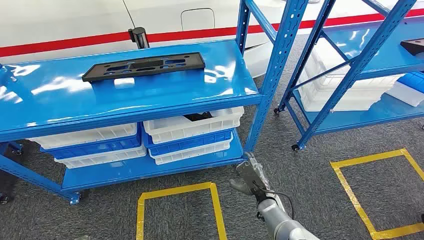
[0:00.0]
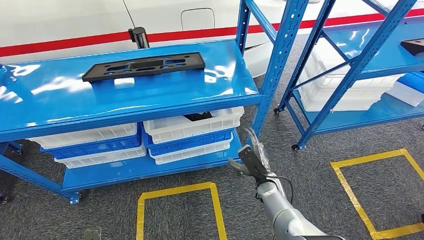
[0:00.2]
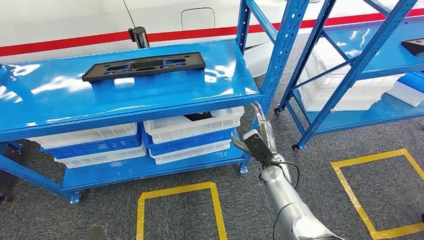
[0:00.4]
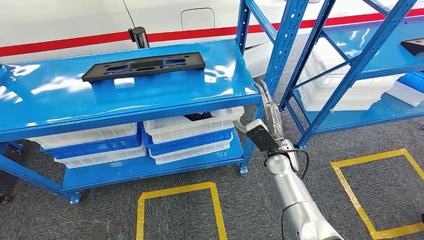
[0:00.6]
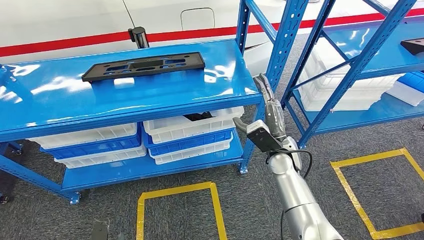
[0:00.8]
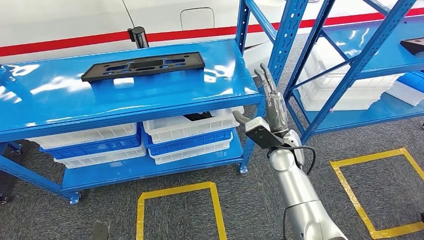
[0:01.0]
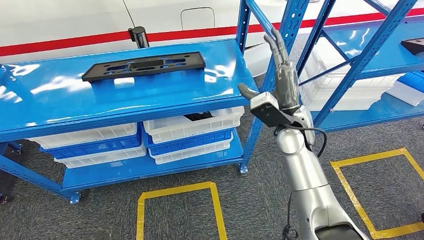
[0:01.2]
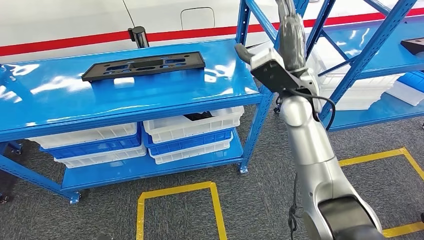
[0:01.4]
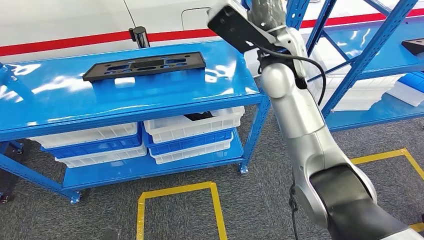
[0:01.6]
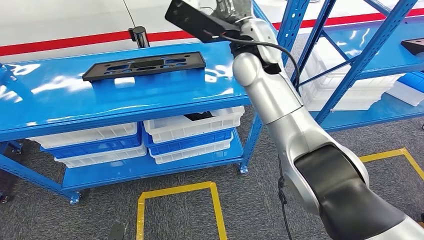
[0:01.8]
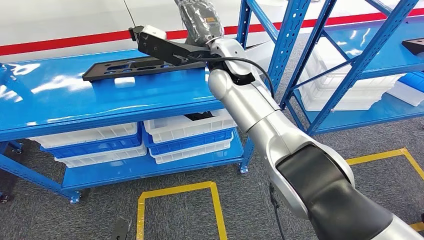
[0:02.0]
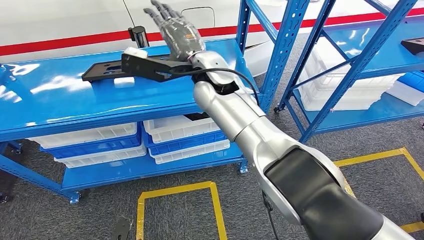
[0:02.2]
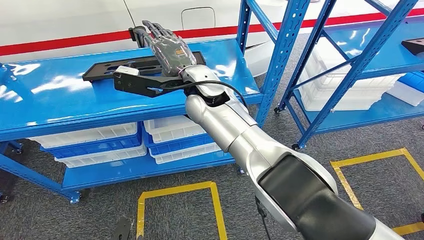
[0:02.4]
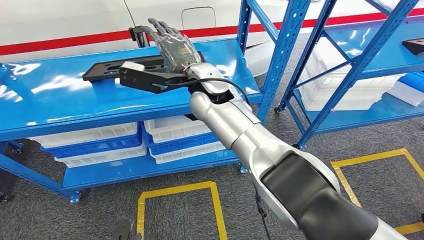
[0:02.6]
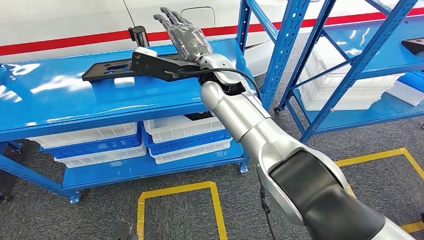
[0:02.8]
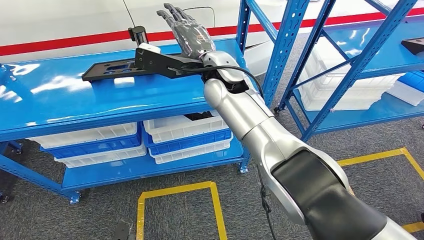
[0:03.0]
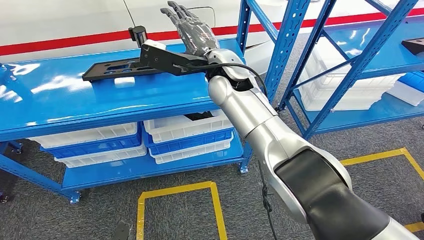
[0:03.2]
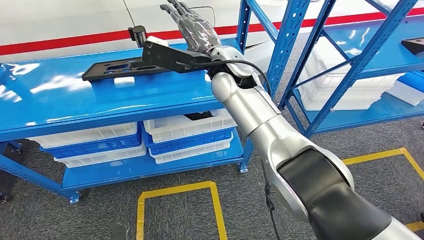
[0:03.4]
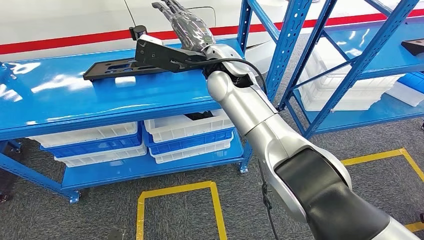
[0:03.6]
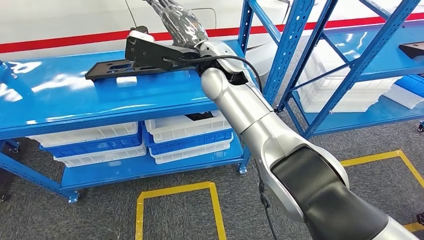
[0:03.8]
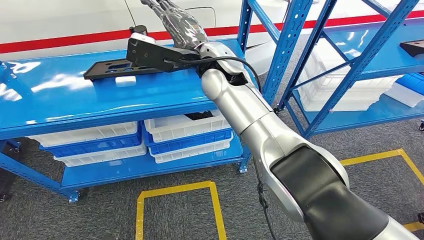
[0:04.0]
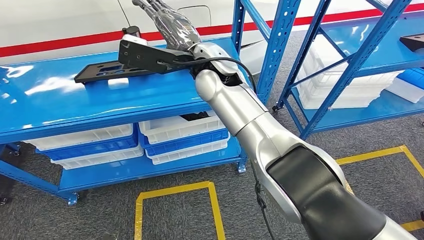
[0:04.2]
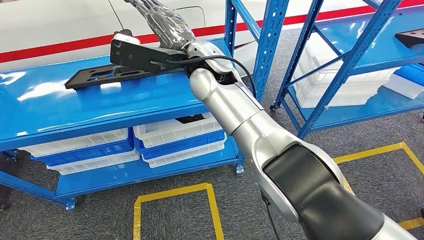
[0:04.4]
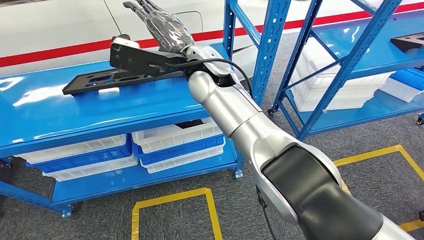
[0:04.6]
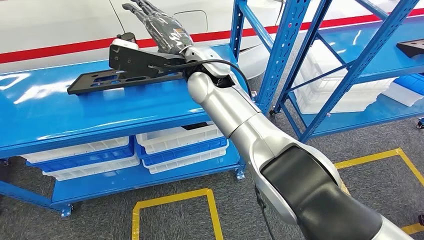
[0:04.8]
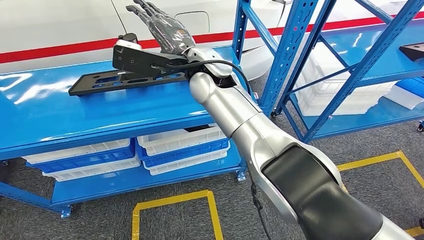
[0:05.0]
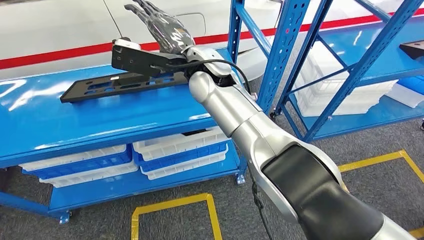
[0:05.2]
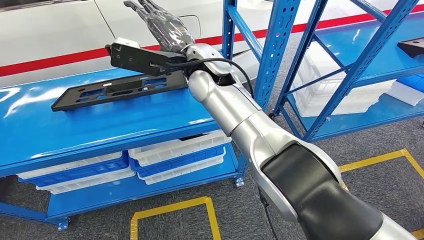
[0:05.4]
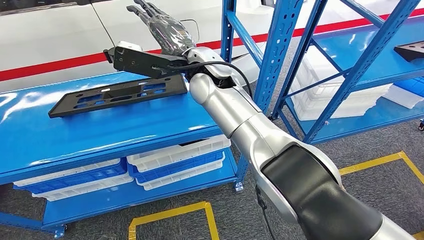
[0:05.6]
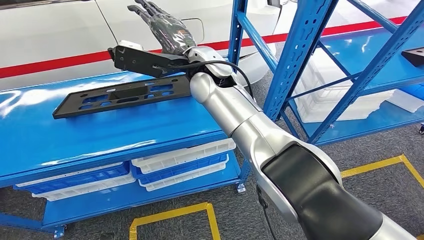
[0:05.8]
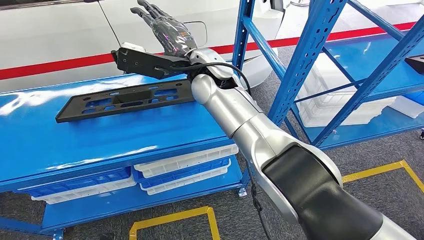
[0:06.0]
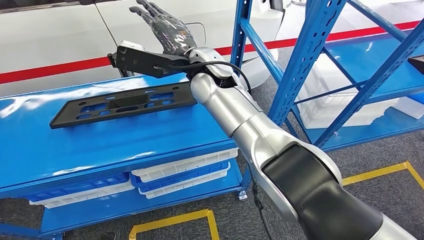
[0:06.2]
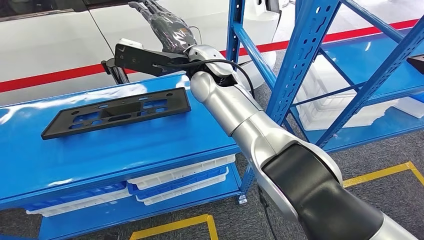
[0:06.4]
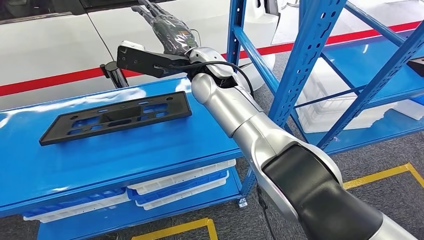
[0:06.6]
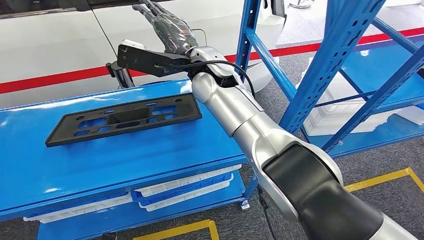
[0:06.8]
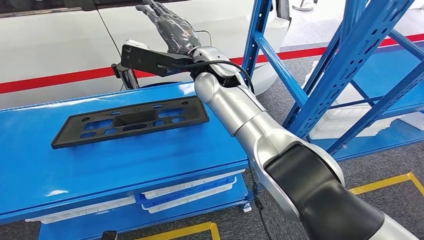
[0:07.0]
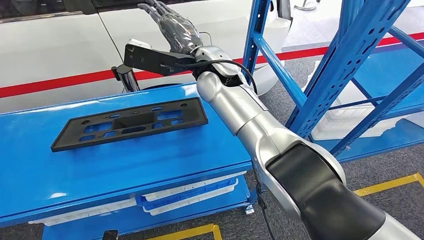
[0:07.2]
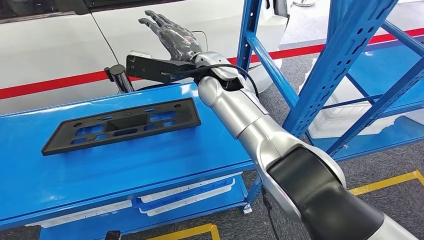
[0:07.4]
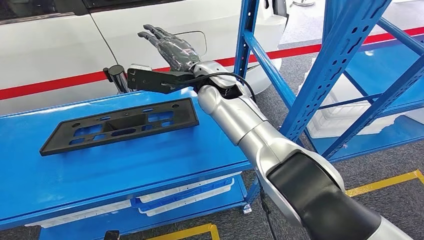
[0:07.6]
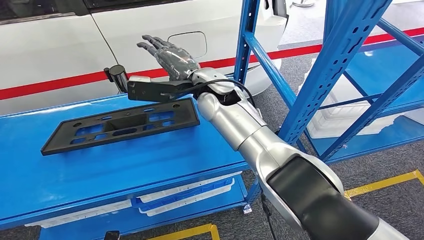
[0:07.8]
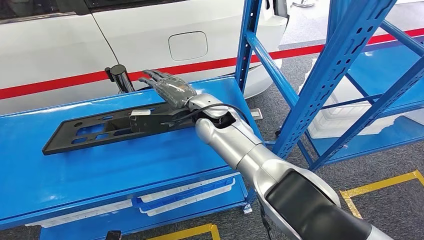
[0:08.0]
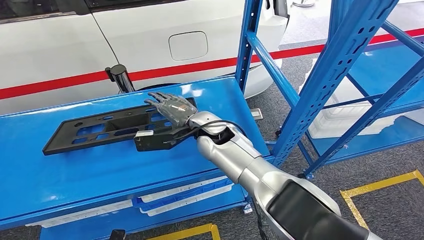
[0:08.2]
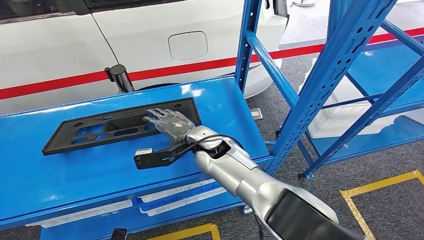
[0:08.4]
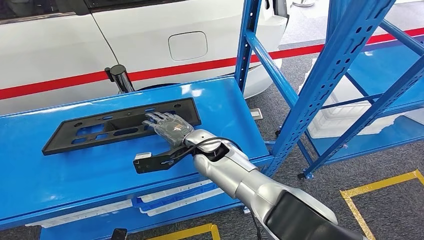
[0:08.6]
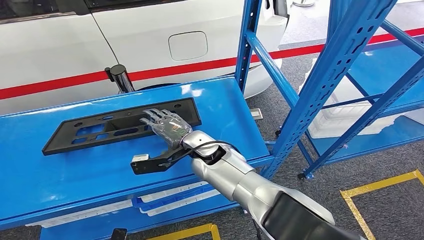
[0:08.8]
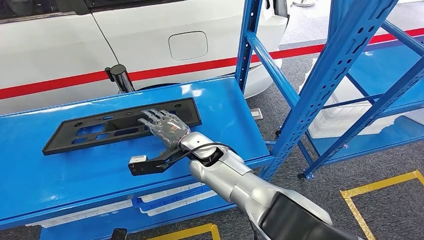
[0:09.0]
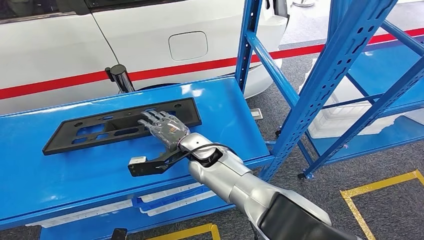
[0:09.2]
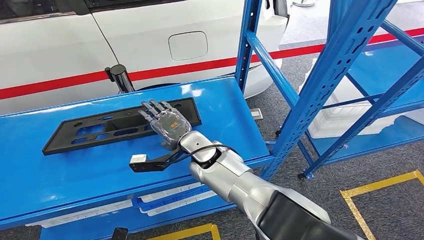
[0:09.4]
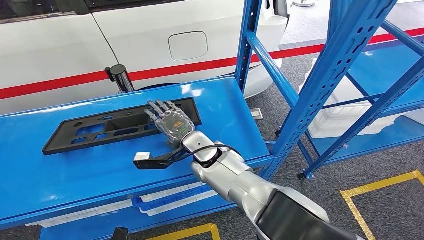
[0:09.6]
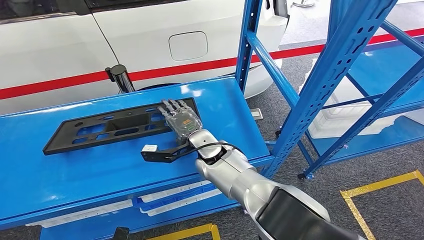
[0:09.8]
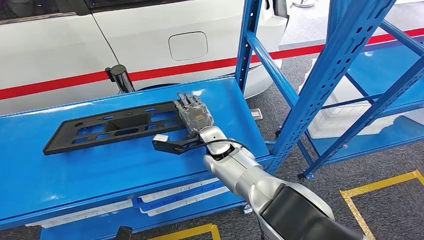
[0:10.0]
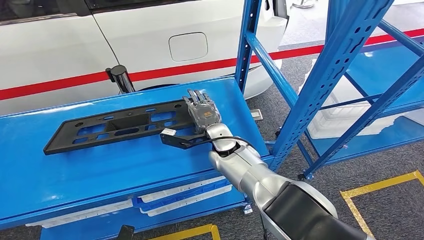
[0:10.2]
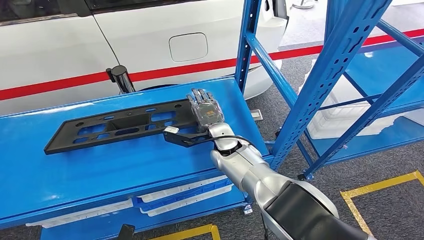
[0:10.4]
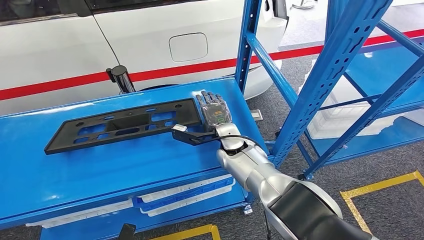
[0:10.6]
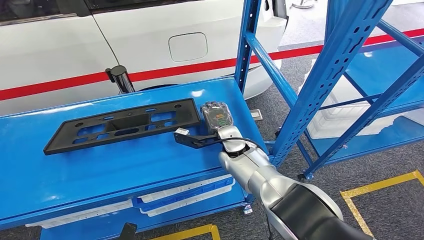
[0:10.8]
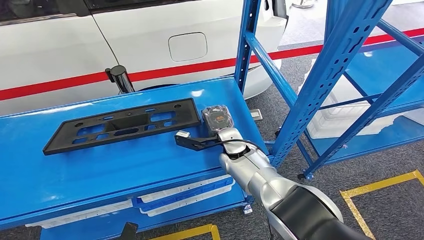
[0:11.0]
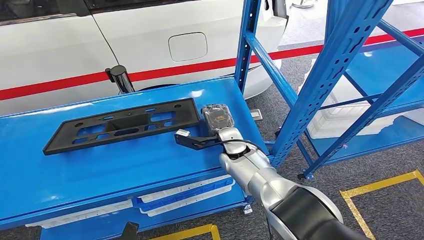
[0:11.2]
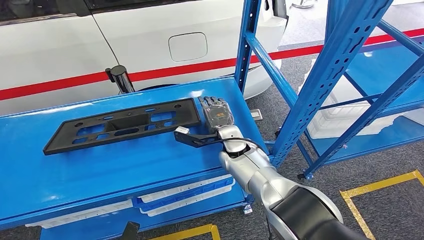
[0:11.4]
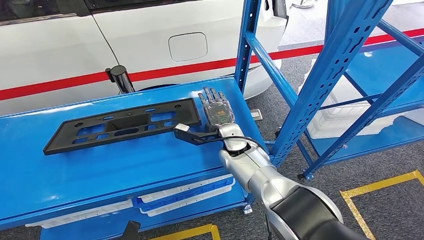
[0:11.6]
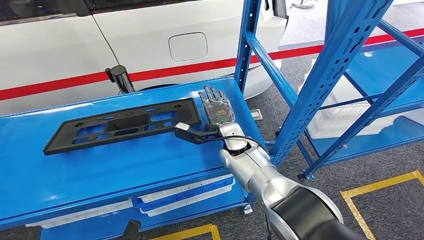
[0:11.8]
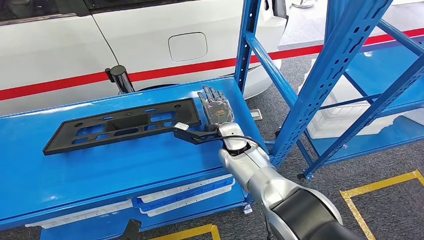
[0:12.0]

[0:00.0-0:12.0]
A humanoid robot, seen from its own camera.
0:09.0 to 0:10.4: The right hand moves to the right, approximately 5 cm.
0:10.4 to 0:12.0: The hands move only a little.

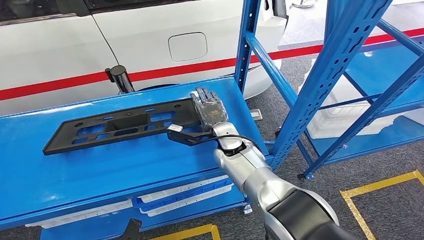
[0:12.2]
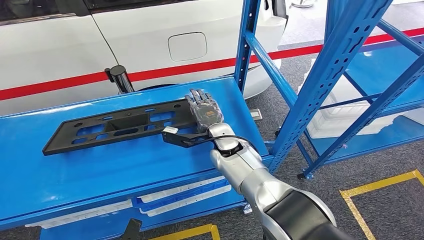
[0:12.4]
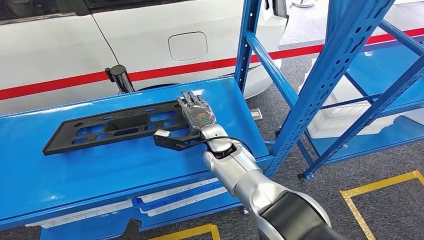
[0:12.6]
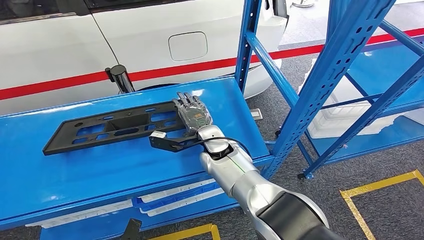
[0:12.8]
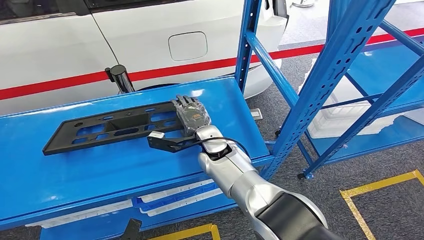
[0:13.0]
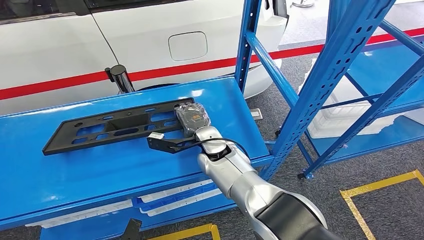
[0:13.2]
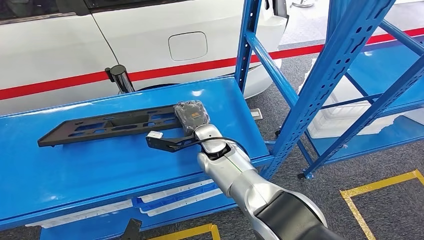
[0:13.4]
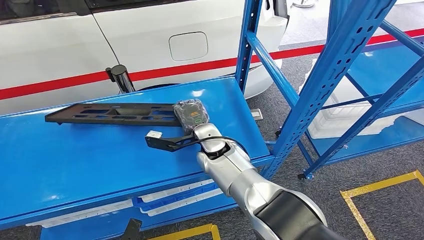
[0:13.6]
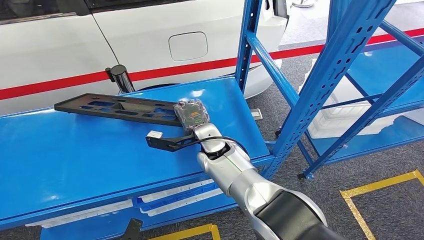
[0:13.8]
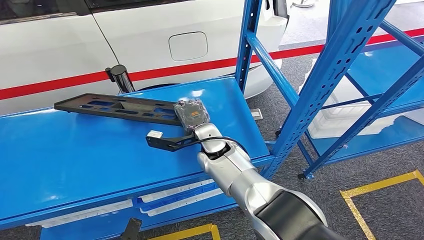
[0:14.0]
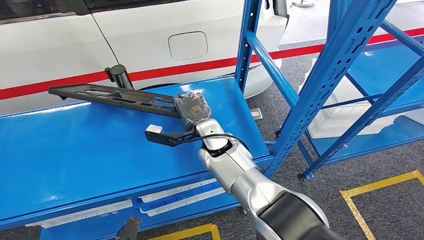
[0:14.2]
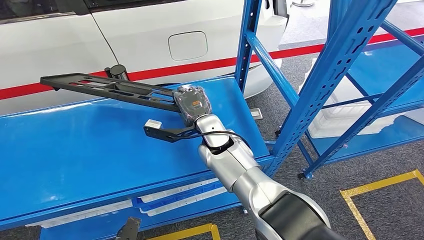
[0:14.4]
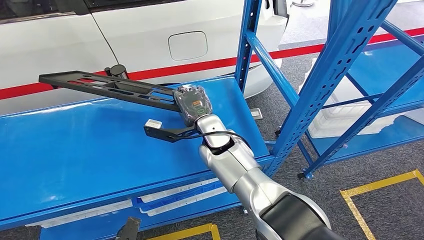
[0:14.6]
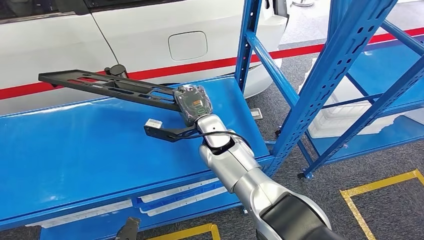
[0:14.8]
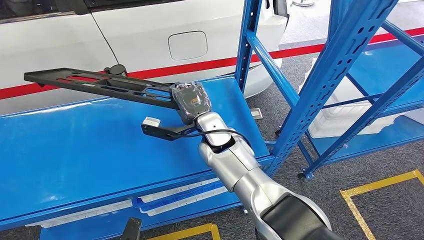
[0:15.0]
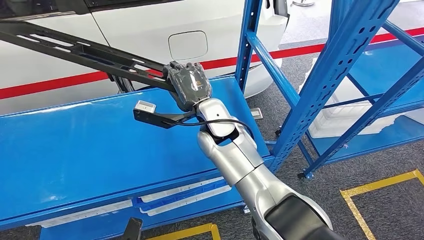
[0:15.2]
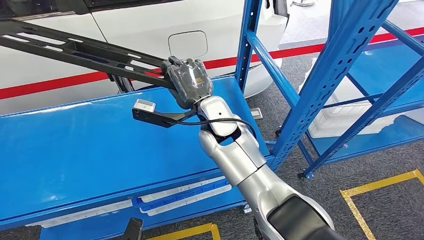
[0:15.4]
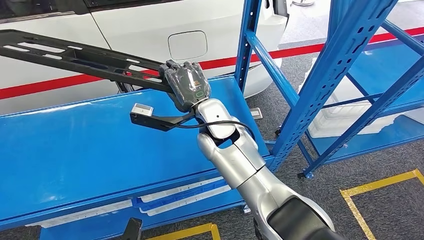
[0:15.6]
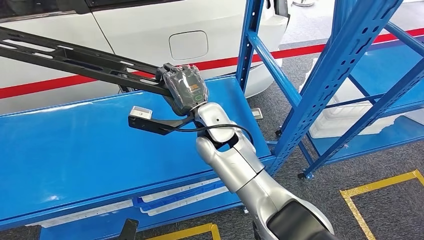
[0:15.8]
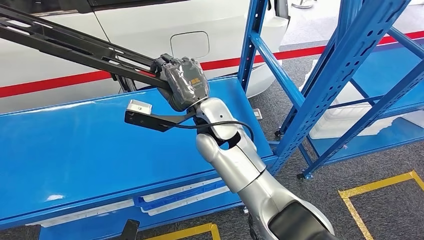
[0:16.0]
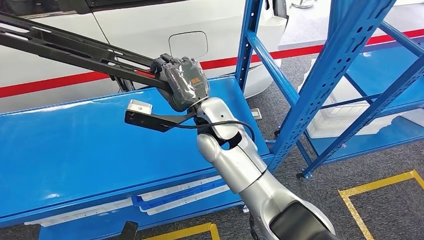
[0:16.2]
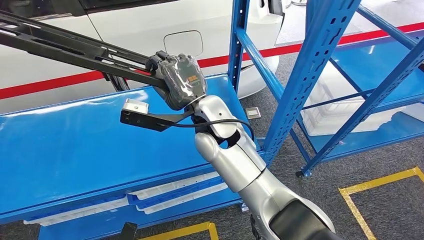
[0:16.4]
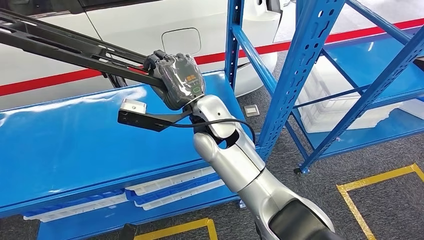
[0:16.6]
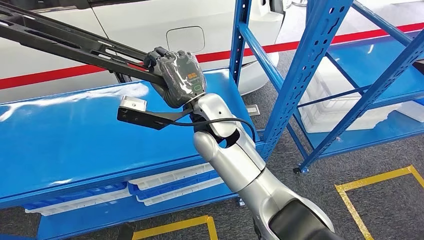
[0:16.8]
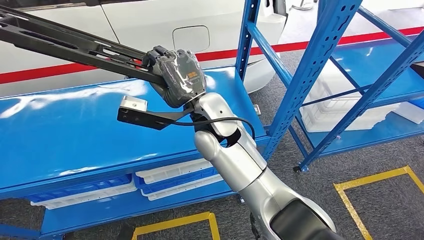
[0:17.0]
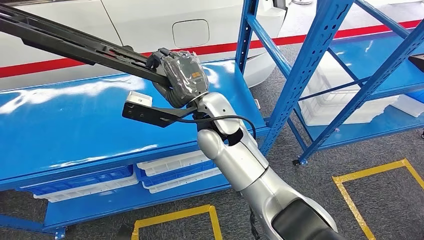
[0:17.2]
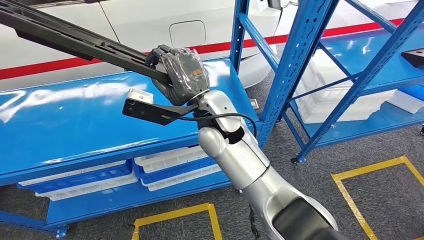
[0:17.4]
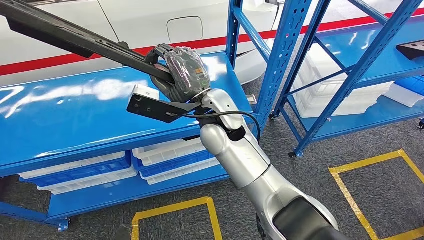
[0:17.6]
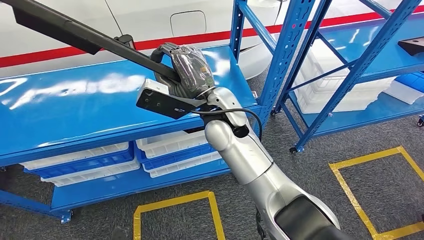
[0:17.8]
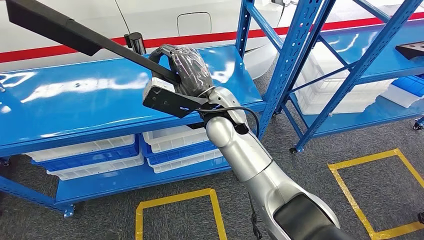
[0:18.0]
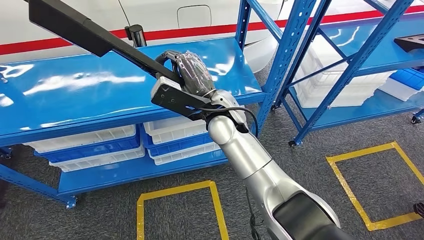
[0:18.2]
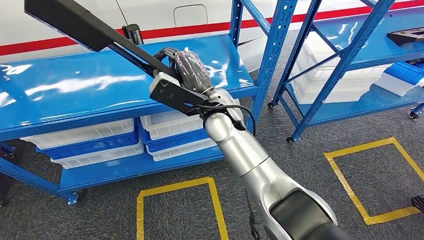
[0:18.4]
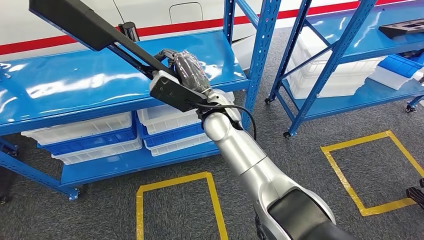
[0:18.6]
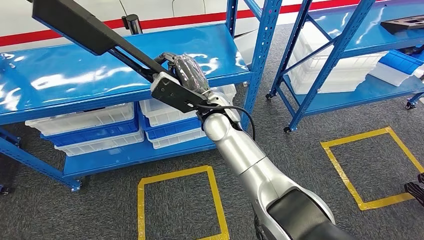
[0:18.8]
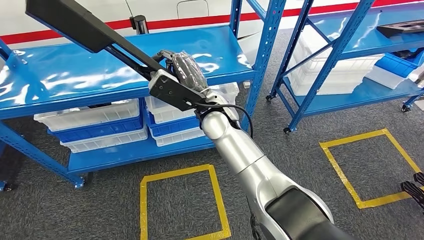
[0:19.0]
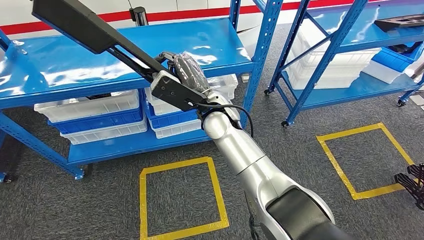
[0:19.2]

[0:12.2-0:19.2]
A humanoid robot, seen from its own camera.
Step, 0:12.2 to 0:17.6: Pick up the large material from the shelf.
0:12.2 to 0:13.6: The right hand moves roughly 5 cm.
0:13.6 to 0:15.0: The hands move only a little.
